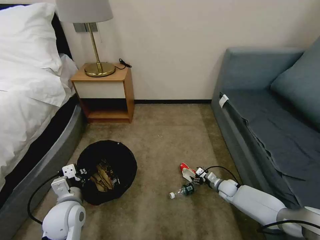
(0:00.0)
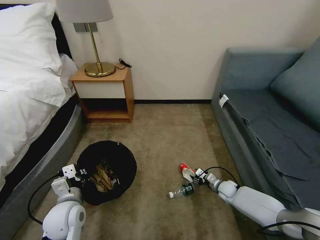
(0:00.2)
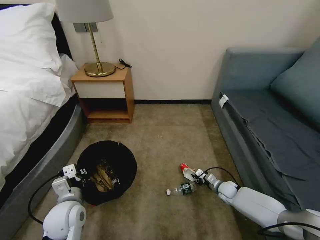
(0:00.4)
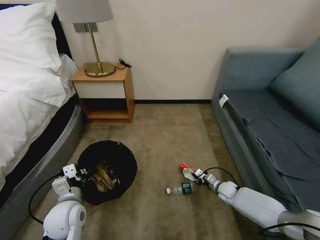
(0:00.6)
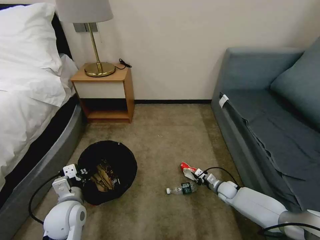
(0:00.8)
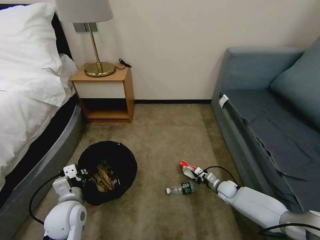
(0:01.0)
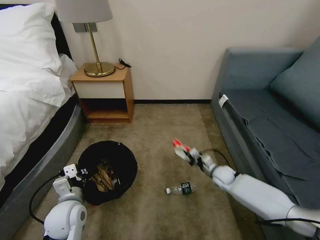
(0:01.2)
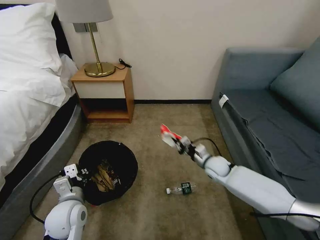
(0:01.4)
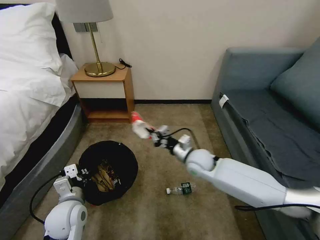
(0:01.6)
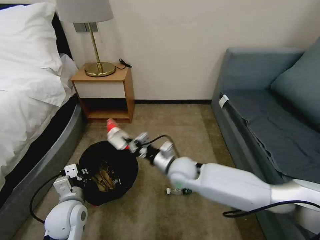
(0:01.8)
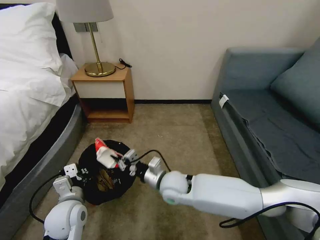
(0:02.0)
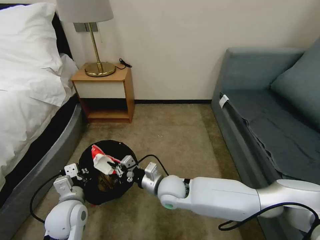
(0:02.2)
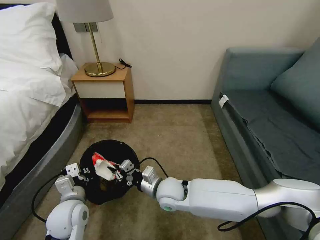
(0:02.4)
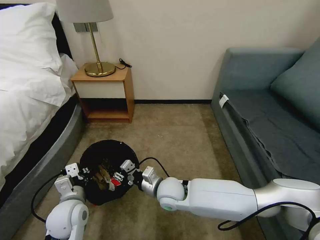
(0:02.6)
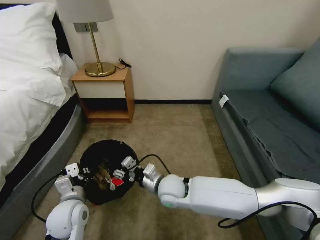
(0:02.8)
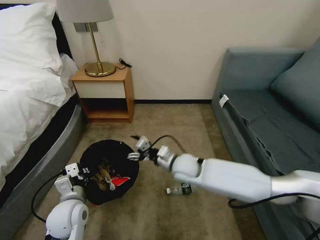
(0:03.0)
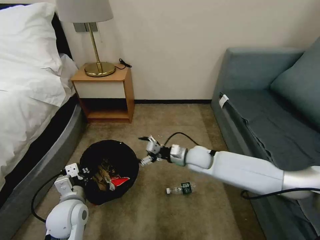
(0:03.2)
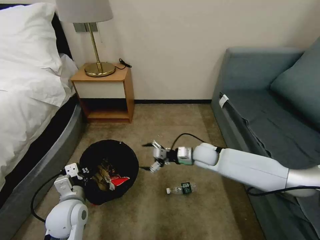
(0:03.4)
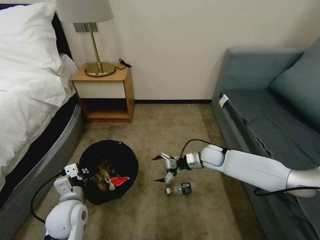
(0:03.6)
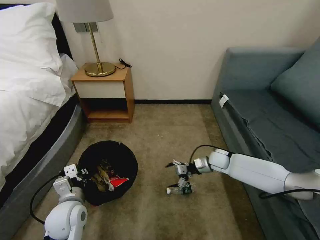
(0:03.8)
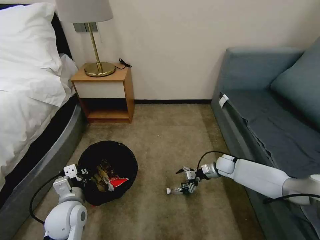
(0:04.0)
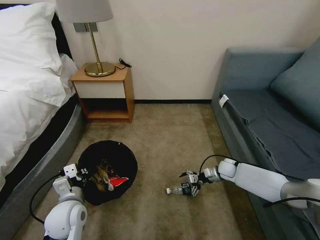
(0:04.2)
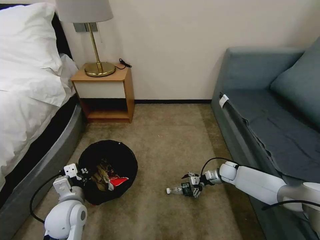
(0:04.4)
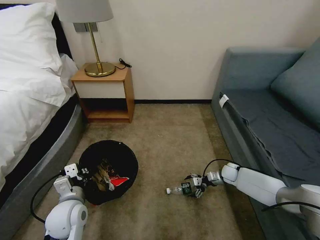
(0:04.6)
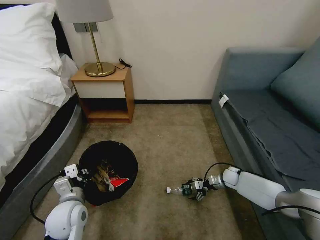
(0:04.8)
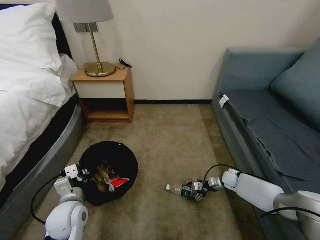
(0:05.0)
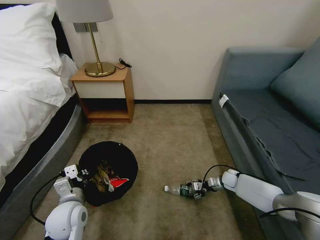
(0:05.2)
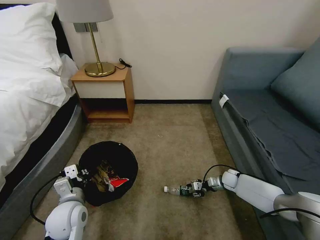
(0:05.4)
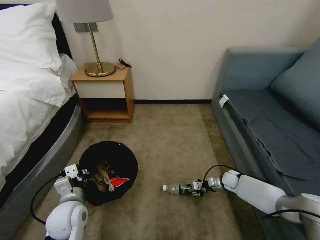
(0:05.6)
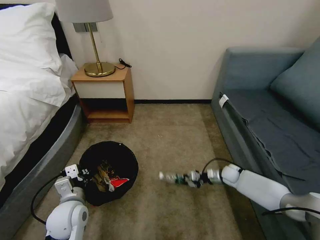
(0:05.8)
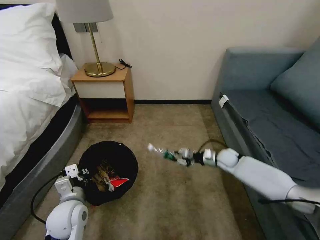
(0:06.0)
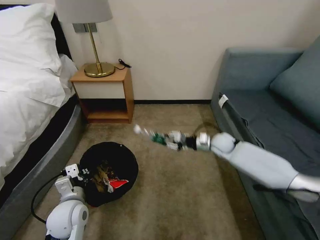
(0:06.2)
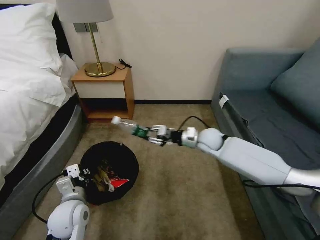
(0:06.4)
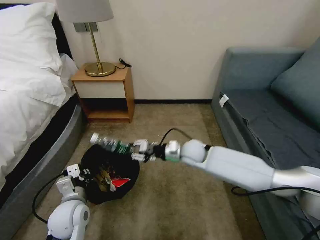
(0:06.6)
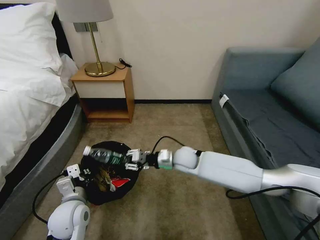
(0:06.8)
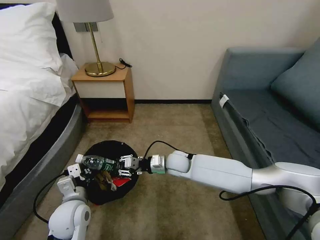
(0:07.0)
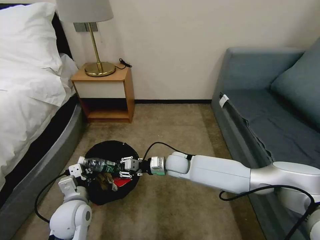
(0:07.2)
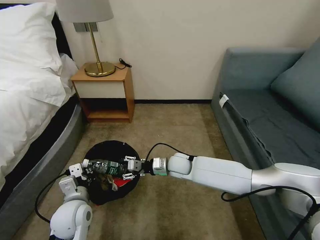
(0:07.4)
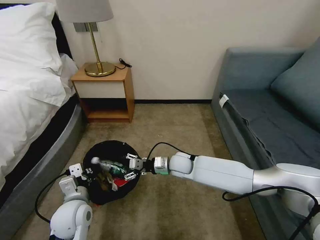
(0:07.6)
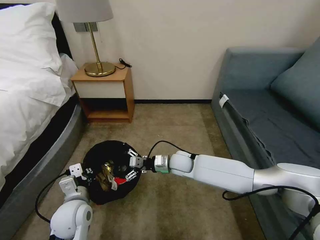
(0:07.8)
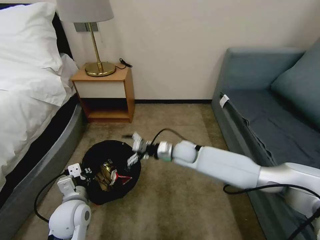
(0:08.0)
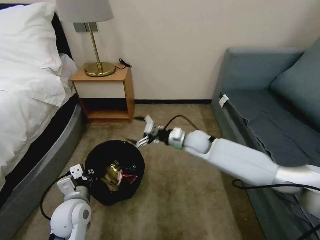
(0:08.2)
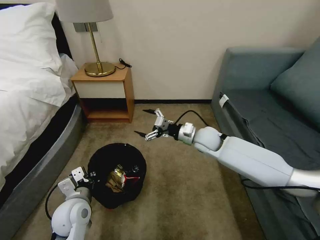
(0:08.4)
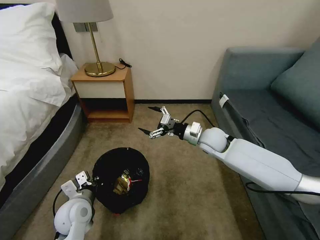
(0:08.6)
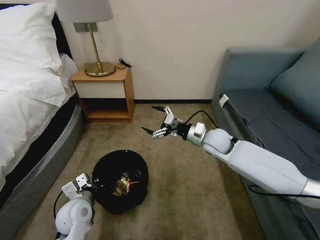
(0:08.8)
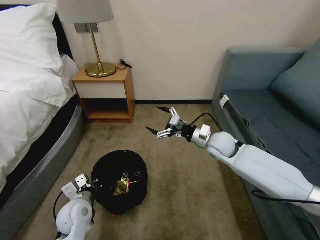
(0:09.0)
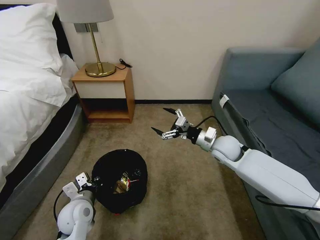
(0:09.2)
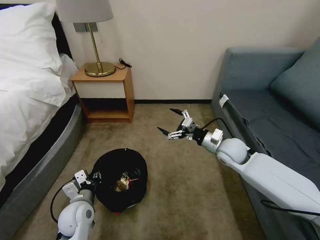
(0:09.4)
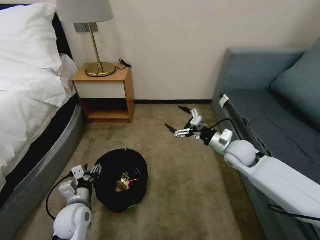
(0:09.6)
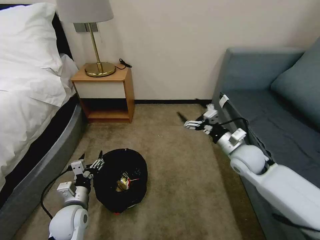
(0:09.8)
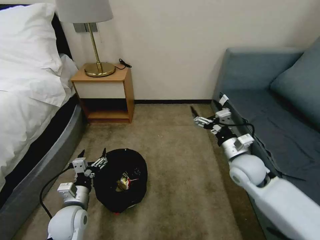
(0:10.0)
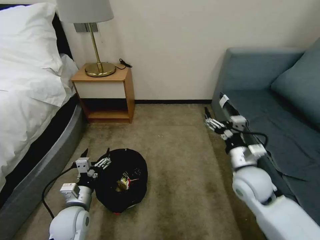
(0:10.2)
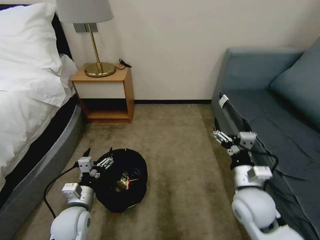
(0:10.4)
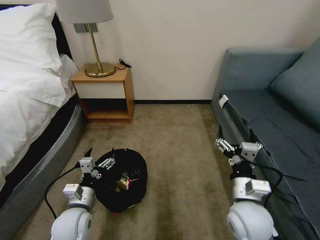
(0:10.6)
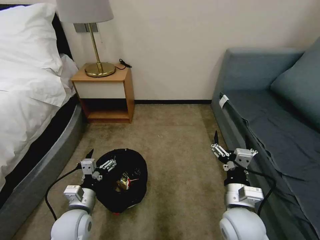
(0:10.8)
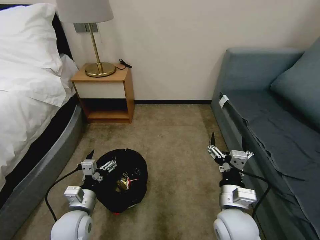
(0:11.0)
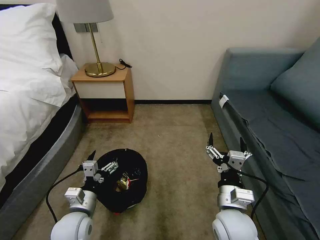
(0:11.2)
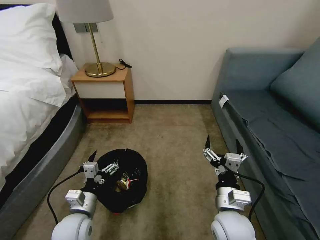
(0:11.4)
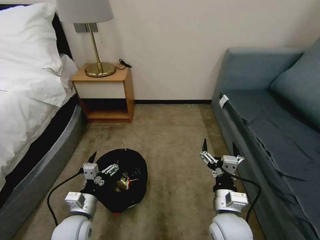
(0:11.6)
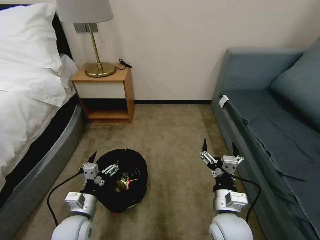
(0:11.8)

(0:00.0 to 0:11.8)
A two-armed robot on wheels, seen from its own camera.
Task of the whole recording: Pick up the trash bin, then pick up the garbage on the floor and place it into the trash bin.
0:00.0 - 0:01.4: The right gripper is displaced upward and to the left by roughly 20 cm, and closes its fingers.
0:01.4 - 0:03.0: The right gripper is displaced to the left and backward by about 20 cm, and opens up.
0:03.0 - 0:04.4: The right gripper heads to the right and downward, covering about 30 cm.
0:04.4 - 0:06.0: The right gripper closes its fingers.
0:06.0 - 0:07.4: The right gripper shifts some 25 cm to the left.
0:07.4 - 0:08.8: The right gripper is displaced to the right and upward by about 15 cm, and opens its fingers.
0:08.8 - 0:10.4: The right gripper goes some 20 cm backward. The left gripper opens up.
0:10.4 - 0:11.8: The right gripper moves to the left and backward, roughly 10 cm.

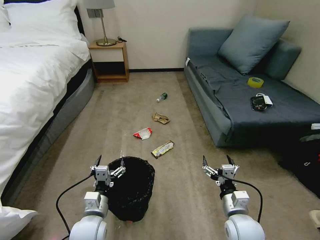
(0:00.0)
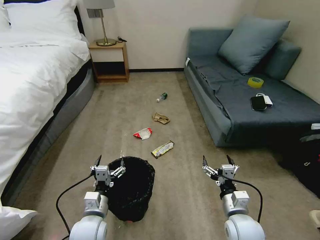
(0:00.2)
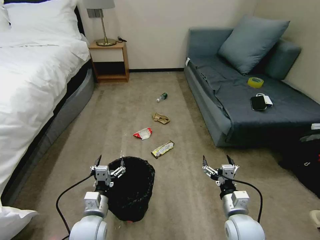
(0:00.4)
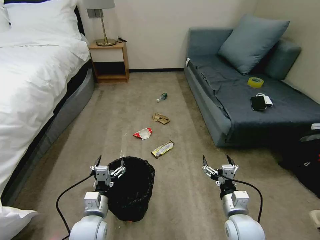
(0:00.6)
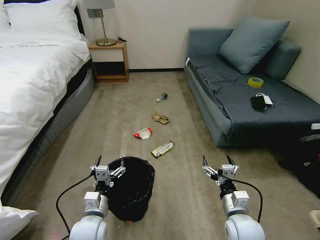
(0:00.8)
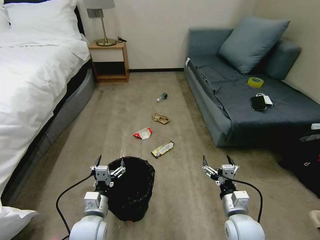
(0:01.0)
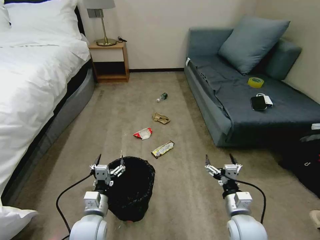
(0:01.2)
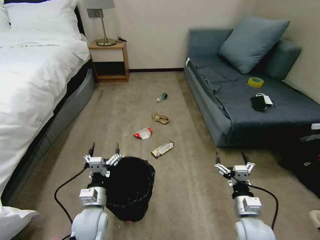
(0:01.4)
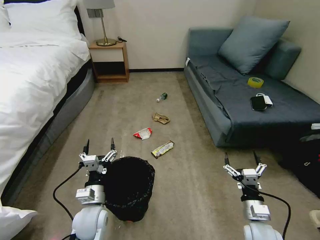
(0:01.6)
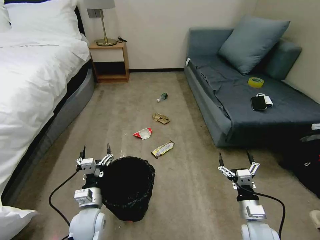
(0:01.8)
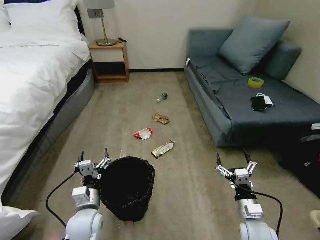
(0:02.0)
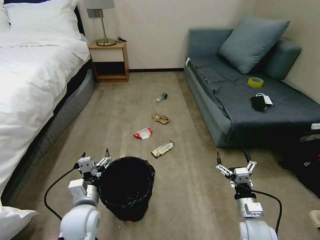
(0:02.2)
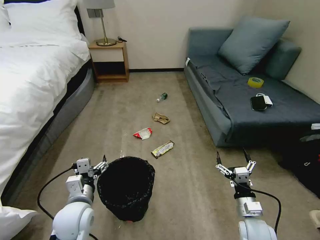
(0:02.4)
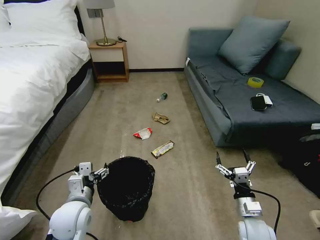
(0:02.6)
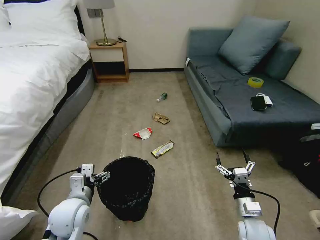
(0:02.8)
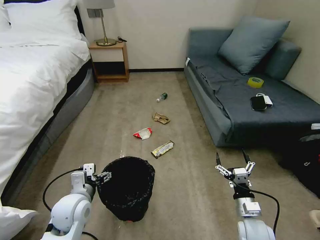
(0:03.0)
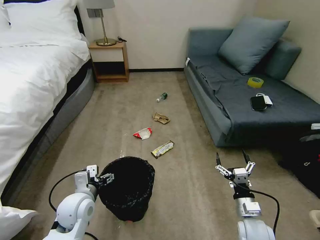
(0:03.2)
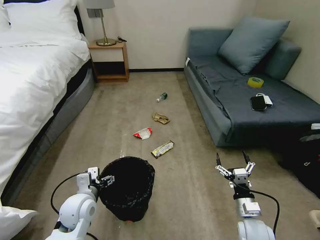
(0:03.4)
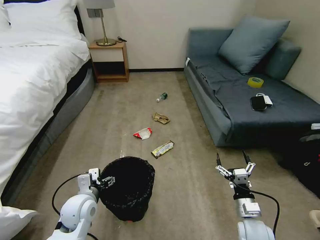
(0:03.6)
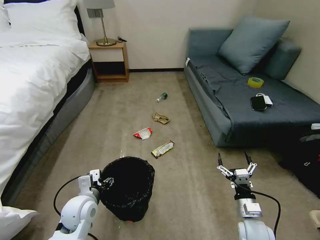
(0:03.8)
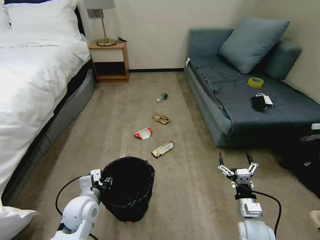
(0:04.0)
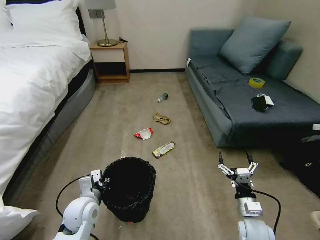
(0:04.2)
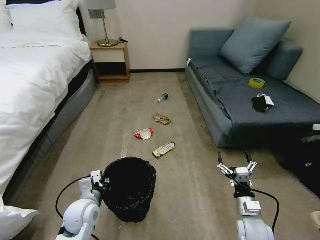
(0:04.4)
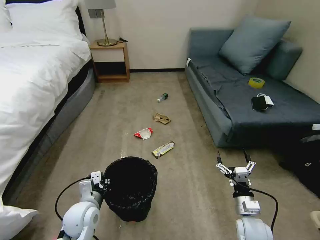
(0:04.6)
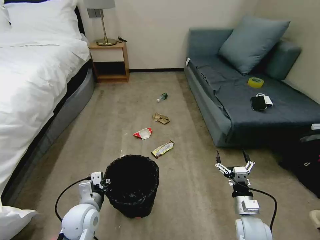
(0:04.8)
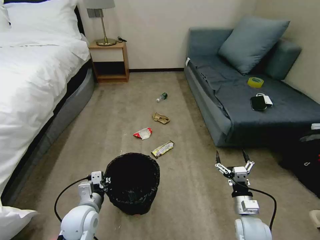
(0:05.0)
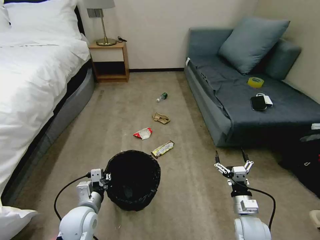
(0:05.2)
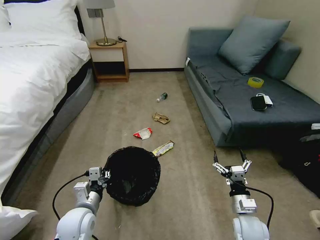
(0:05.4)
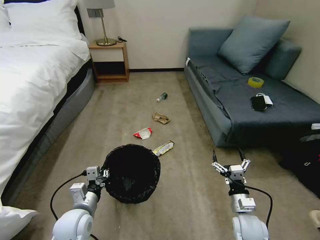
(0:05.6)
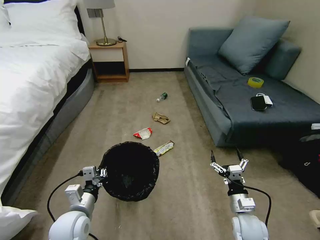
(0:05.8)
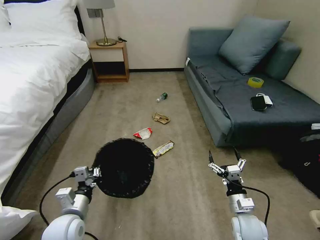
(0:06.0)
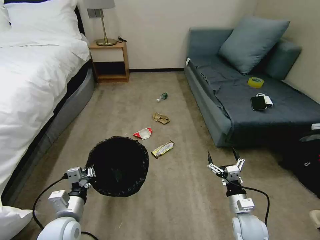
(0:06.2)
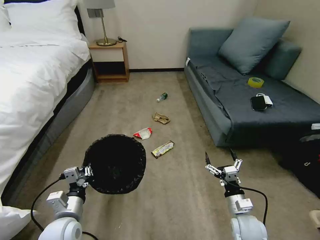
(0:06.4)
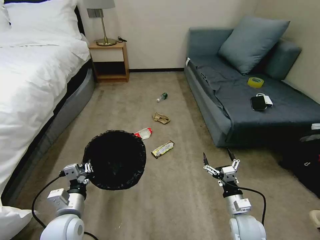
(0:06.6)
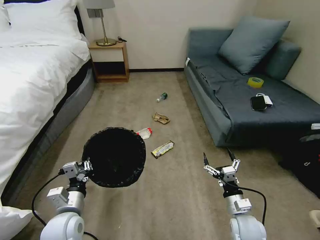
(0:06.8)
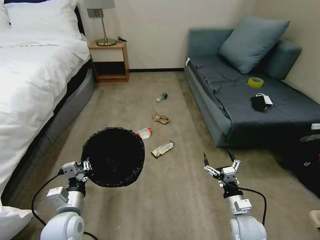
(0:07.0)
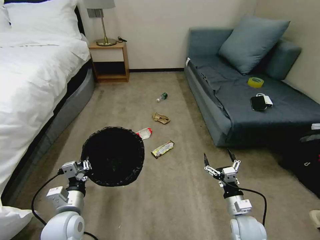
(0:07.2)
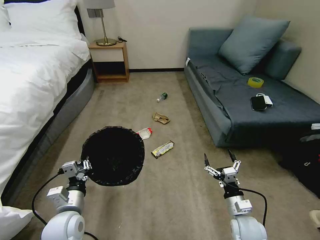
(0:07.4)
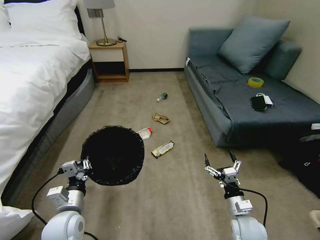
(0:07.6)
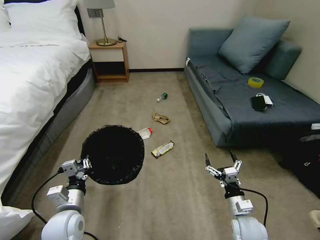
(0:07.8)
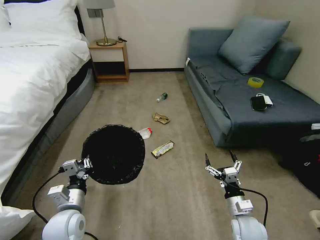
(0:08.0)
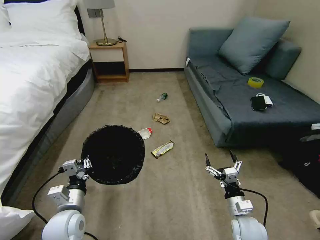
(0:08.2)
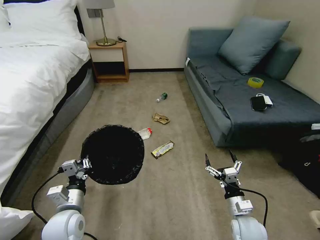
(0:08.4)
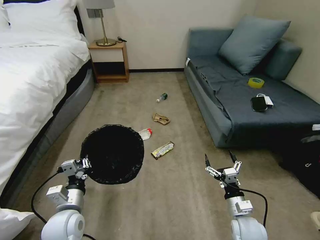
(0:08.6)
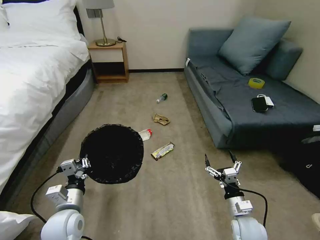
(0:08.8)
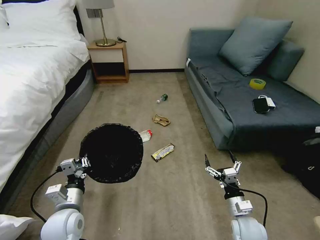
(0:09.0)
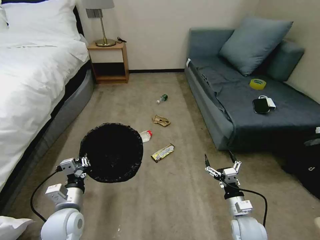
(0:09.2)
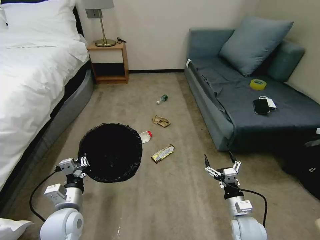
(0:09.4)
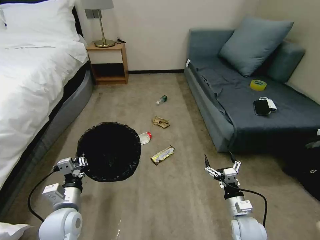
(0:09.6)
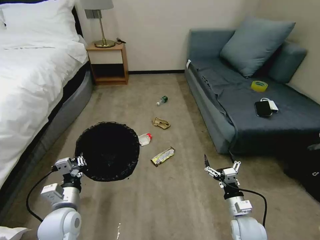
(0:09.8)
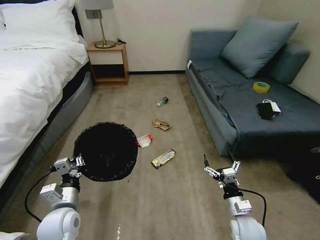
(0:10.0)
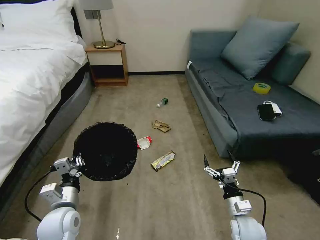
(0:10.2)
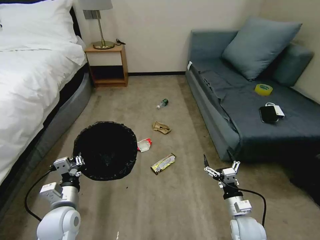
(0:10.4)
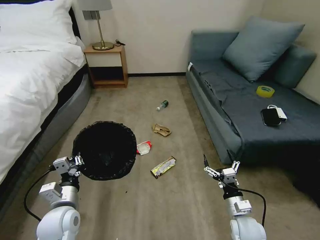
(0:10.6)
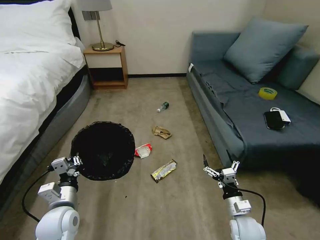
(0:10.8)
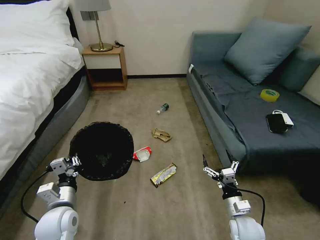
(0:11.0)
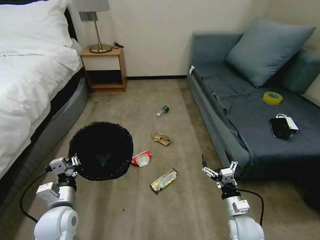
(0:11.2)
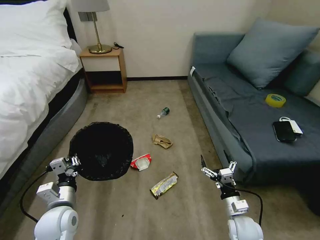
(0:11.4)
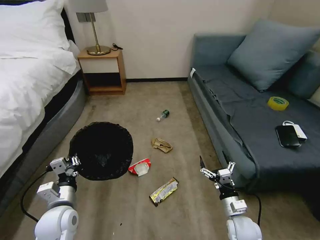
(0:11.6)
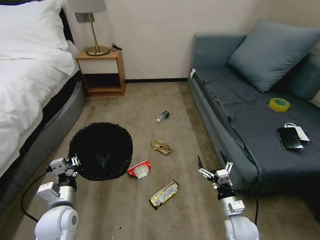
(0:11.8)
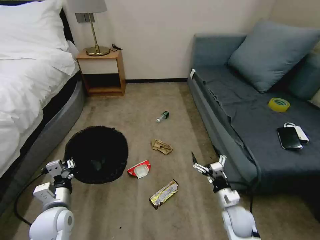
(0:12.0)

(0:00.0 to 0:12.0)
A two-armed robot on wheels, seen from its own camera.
Task of the whole recording: Pick up the trash bin, then pick up the garbage on the floor and place it into the trash bin.
0:01.6 - 0:03.0: The left gripper is displaced upward by approximately 5 cm.
0:03.0 - 0:04.4: The left gripper closes its fingers.
0:04.4 - 0:06.0: The left gripper shifts about 5 cm backward.
0:06.0 - 0:07.6: The grippers make only small movements.
0:07.6 - 0:09.0: Both grippers stay about where they are.
